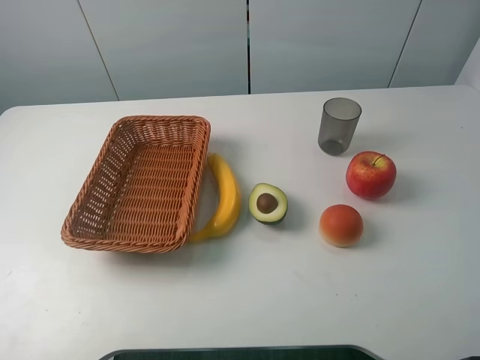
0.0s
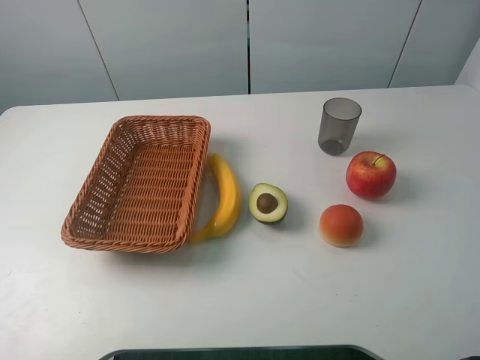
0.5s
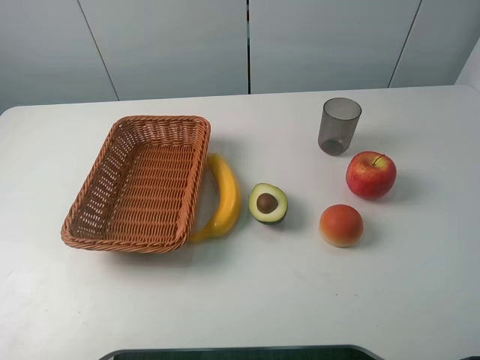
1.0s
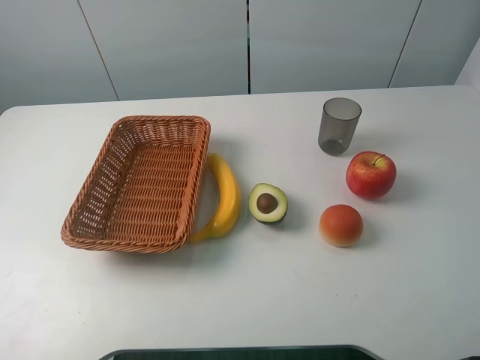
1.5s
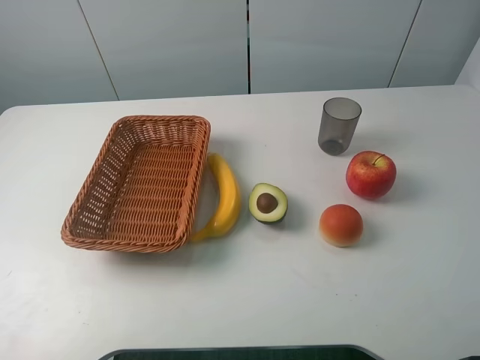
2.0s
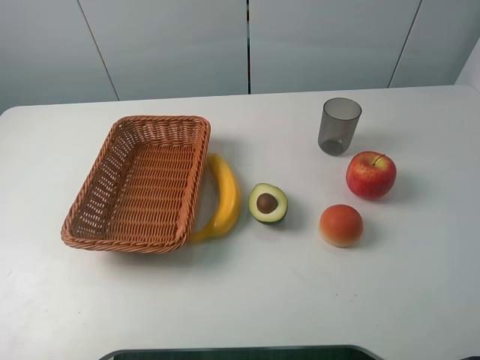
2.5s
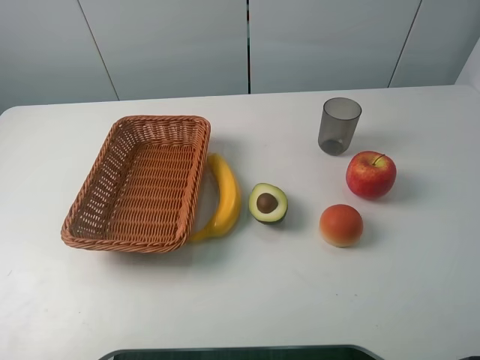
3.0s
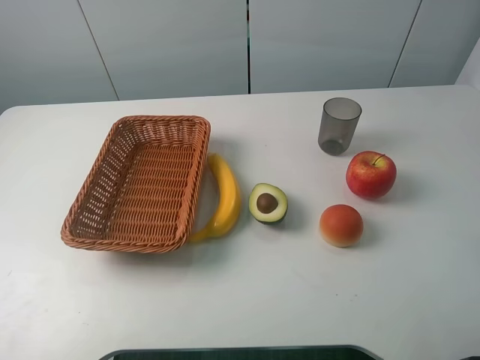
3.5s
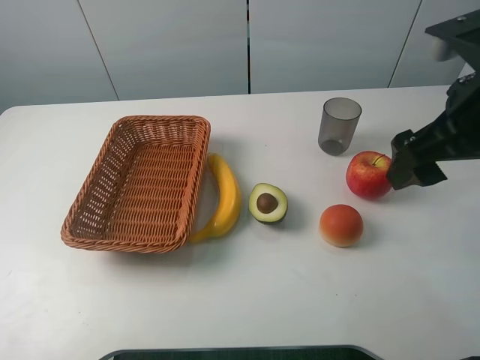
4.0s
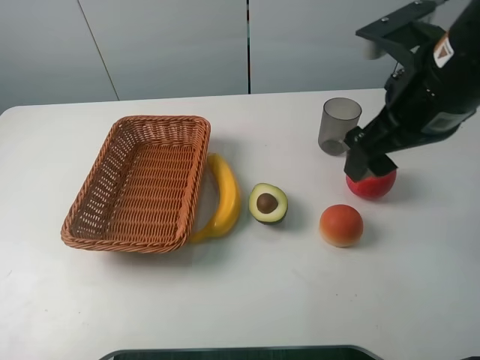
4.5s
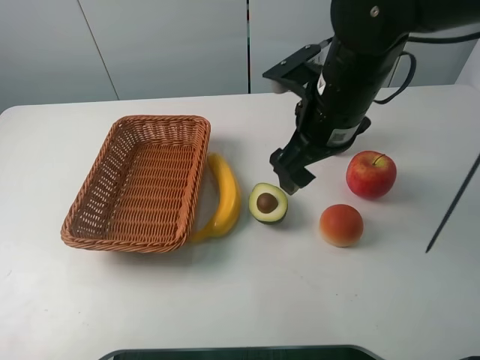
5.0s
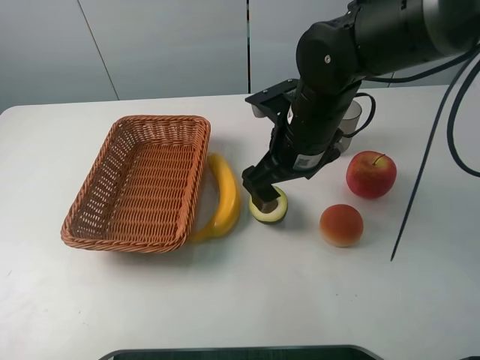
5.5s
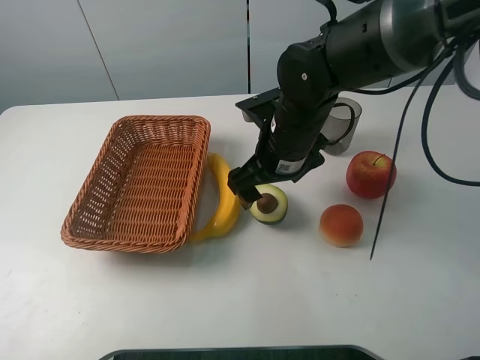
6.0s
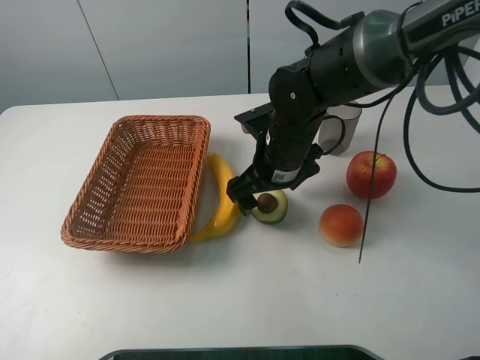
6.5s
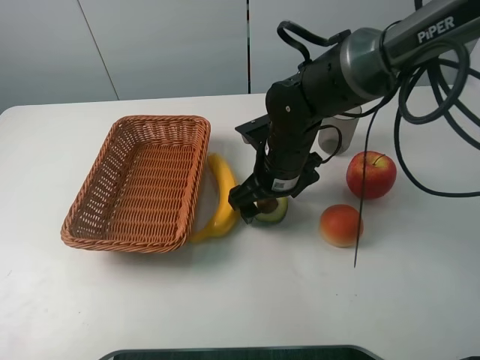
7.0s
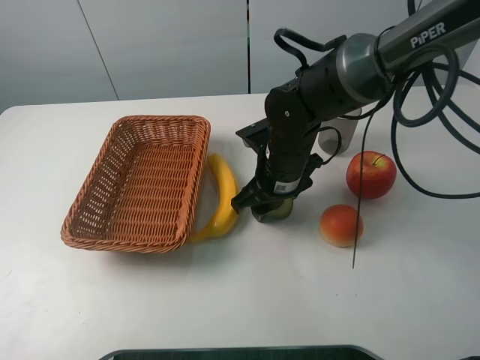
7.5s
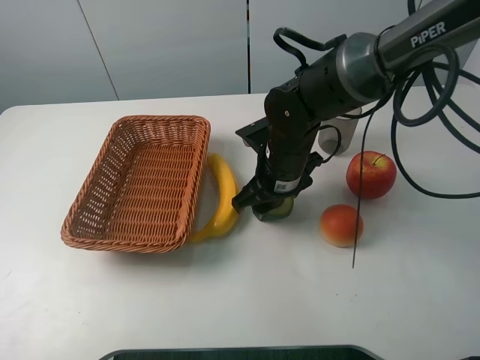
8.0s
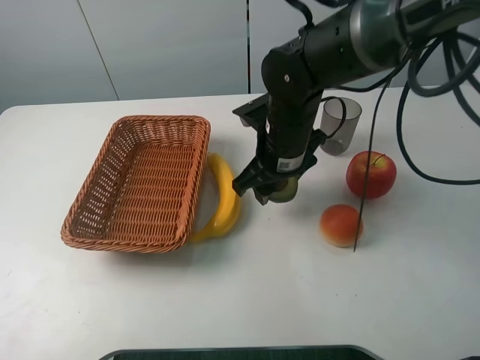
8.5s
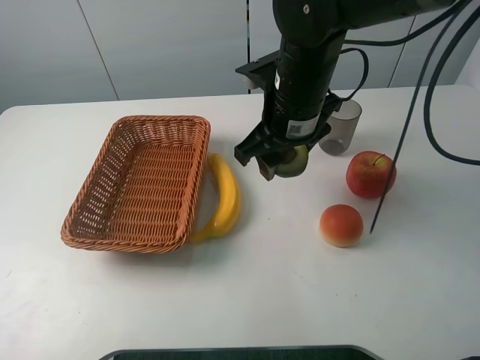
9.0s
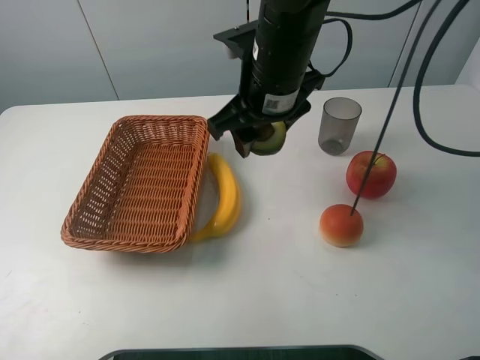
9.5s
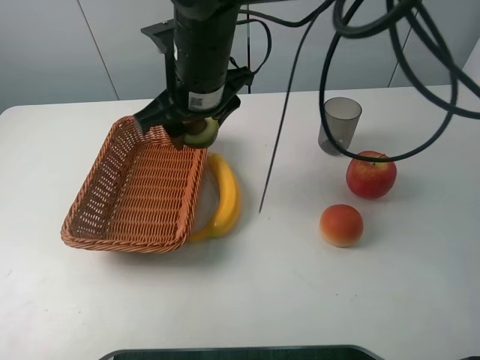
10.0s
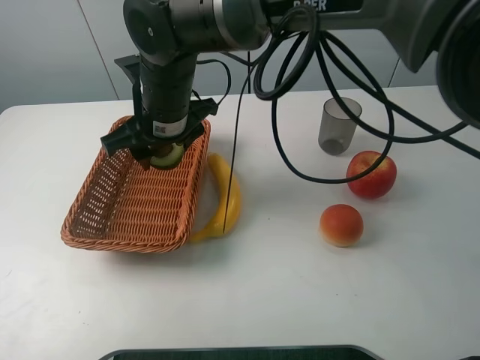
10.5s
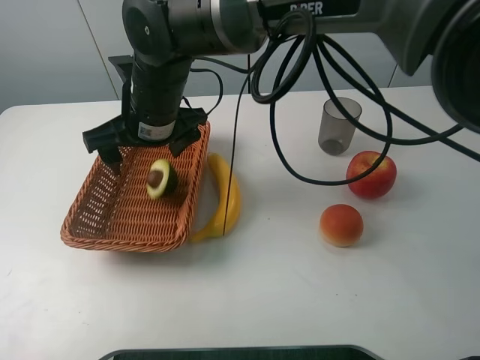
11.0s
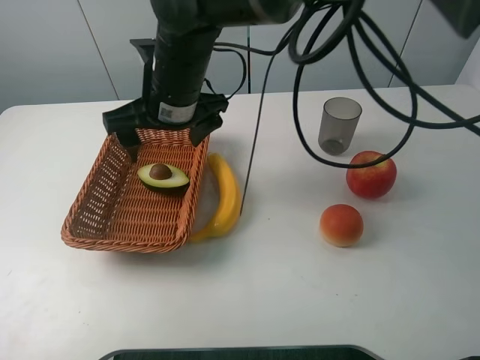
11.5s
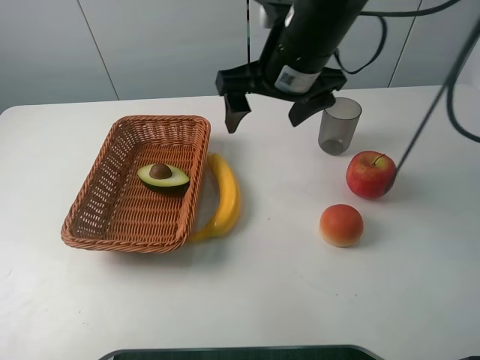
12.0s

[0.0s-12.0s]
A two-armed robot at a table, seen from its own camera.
Task of the whole recording: randomly pick up an item from the table and put it in the basket.
Step, 0.0s to 7.5s: Grasp the avocado with the right gripper.
Step, 8.0s to 11.5s: Place the avocado into the basket with the right gripper.
2.0s to 4.0s: The right gripper shifts roughly 20 cm forward and to the left.
4.0s to 6.0s: The right gripper heads to the left, downward and forward, covering some 20 cm.
6.0s to 8.0s: The right gripper closes up.
8.0s to 10.0s: The right gripper is displaced upward and to the left by about 15 cm.
10.0s to 12.0s: The right gripper moves to the right, approximately 15 cm, and opens up.

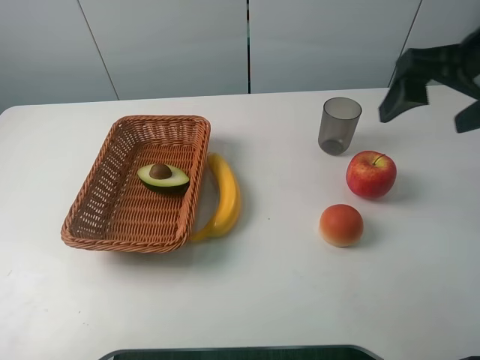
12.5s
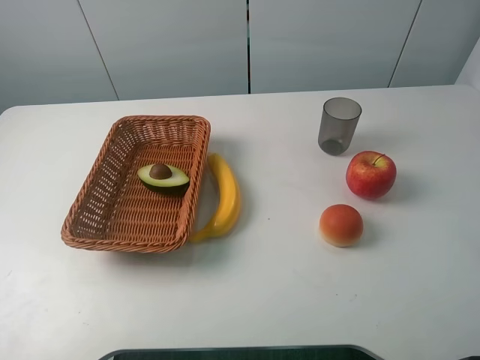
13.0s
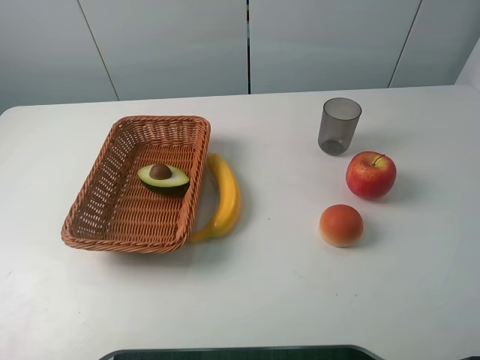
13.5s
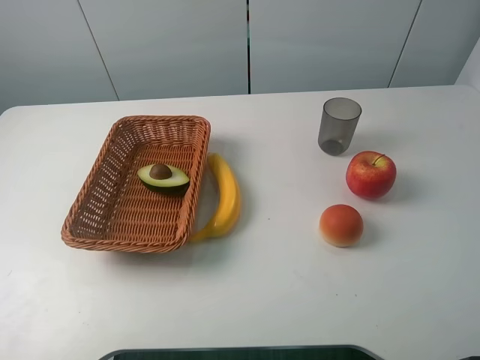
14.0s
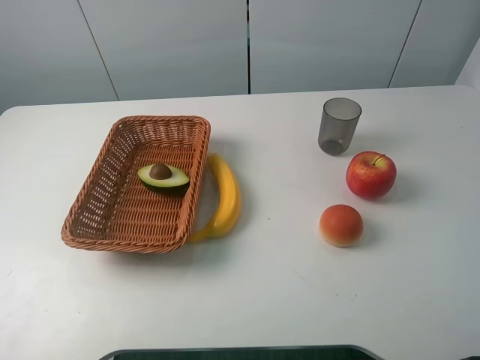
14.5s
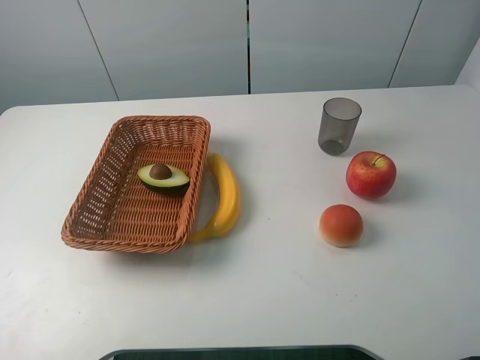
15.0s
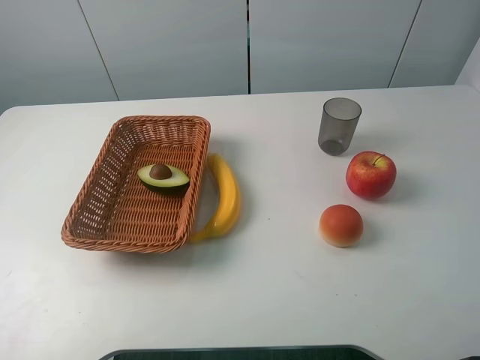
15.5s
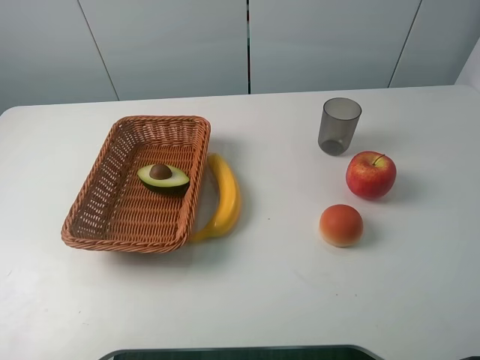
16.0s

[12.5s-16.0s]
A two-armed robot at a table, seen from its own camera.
Task of the whole recording: randomly pick up an item from the table and put it in the basket.
12.5s to 14.5s: The right gripper moves backward, some 20 cm.
14.5s to 16.0s: Neither gripper changes place.

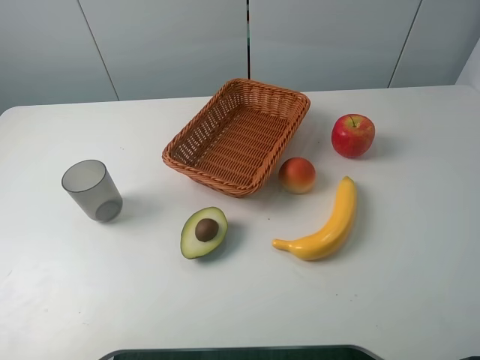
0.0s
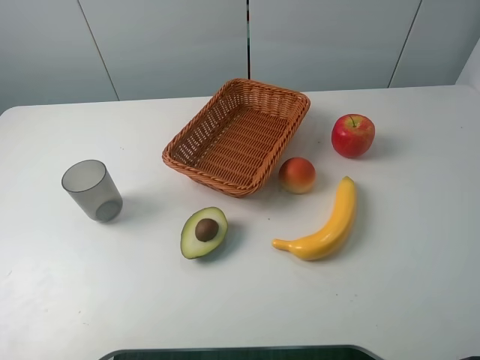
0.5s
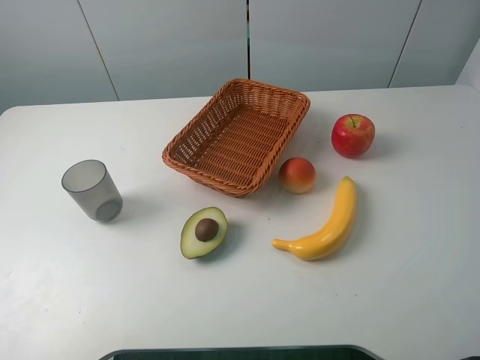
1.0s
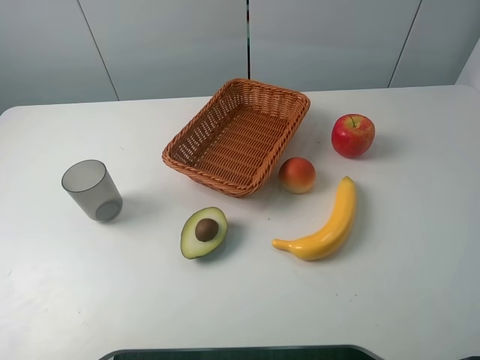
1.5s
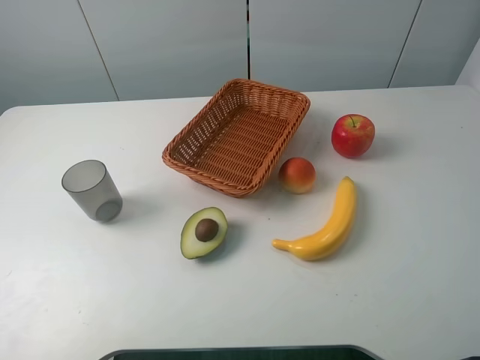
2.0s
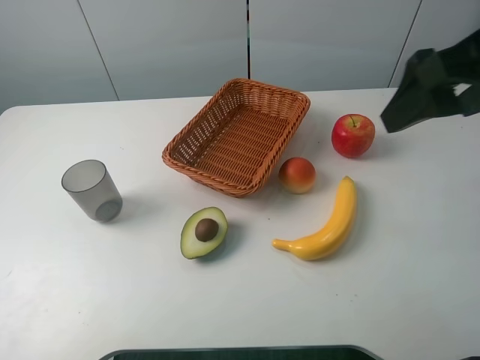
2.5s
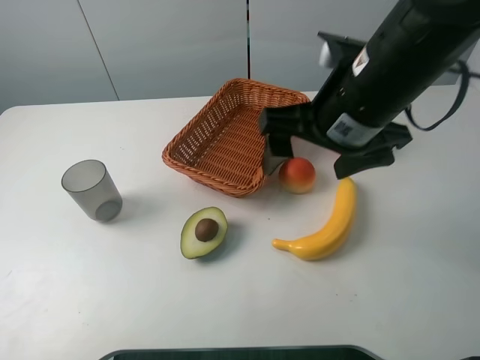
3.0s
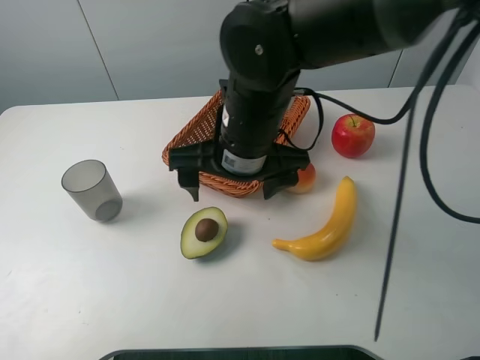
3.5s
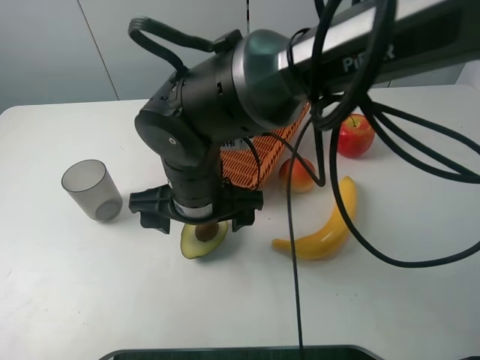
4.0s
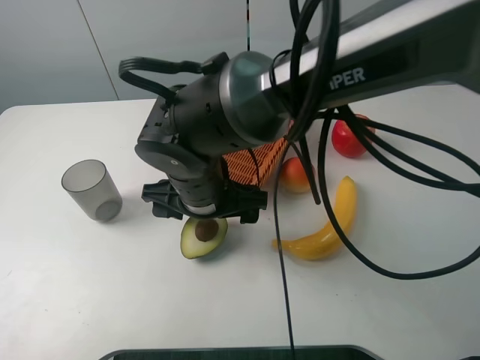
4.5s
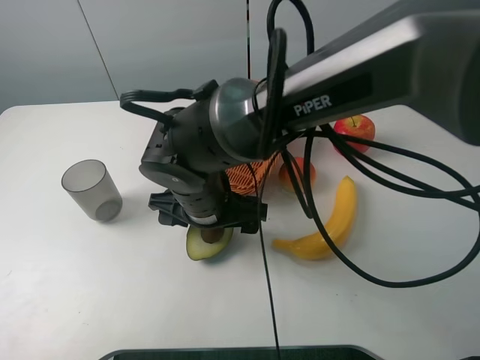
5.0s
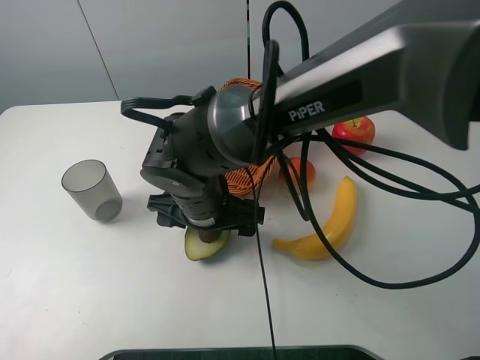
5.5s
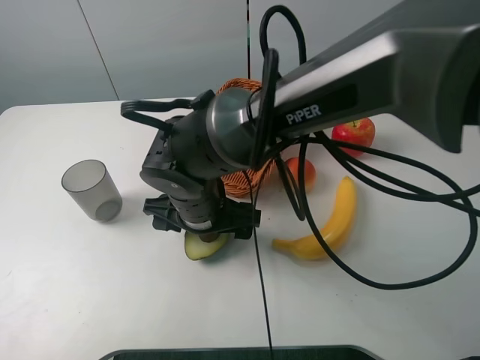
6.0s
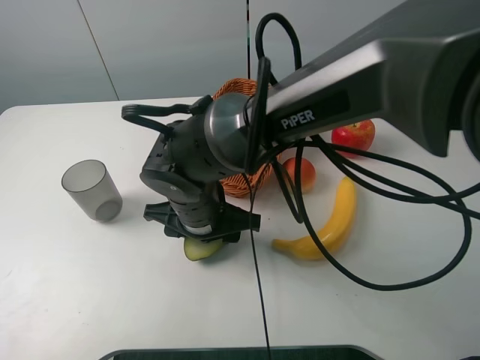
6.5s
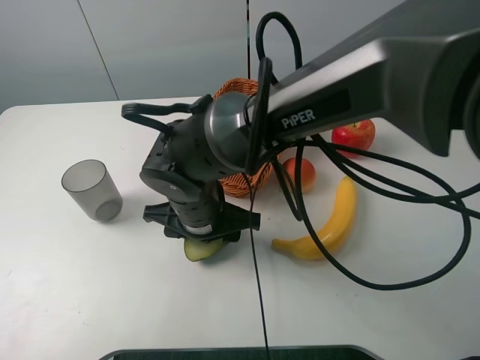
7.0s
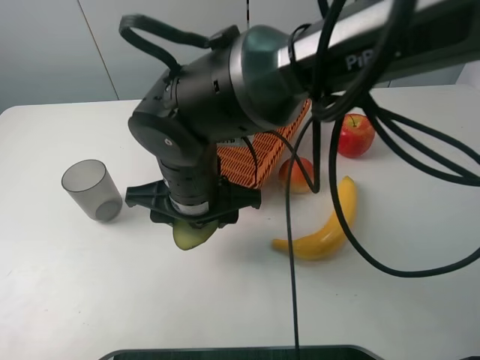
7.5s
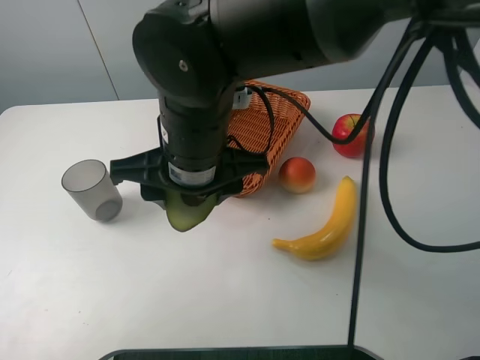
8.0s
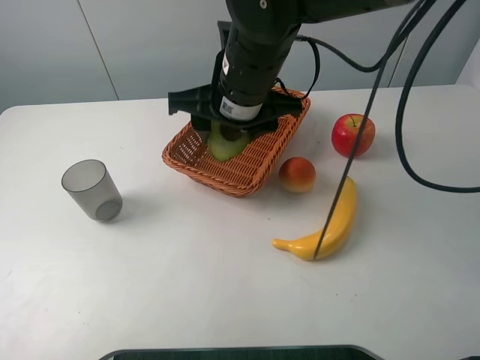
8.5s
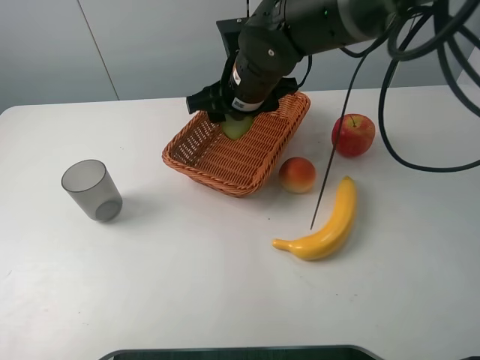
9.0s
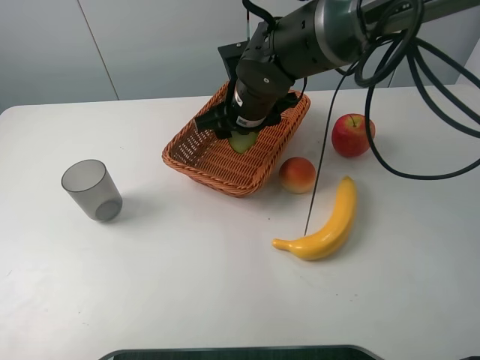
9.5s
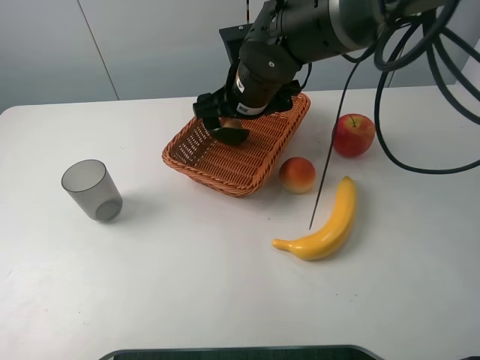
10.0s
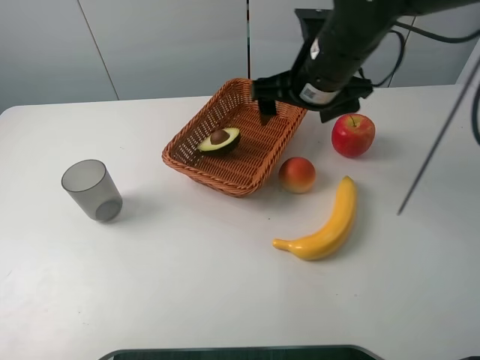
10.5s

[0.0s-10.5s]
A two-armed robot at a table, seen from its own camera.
Task of the whole recording: randomly pick up an item from the table and put it in the basket.
Step, 0.0s to 6.0s: Grasp the avocado with the right gripper.
Step, 6.5s to 10.0s: Place the avocado into the basket with the right gripper.
2.0s to 4.0s: The right gripper shifts approximately 40 cm to the left and downward.
4.0s to 6.5s: The right gripper shifts approximately 5 cm downward, and closes.
6.5s to 8.5s: The right gripper travels upward, forward and to the right by approximately 15 cm.
8.5s to 10.5s: The right gripper moves to the right, some 10 cm, and opens.
